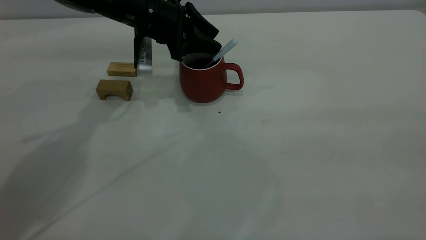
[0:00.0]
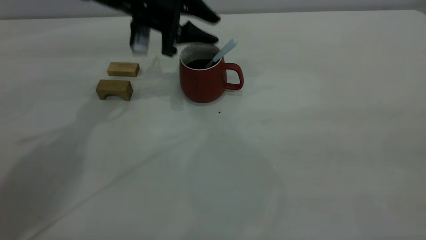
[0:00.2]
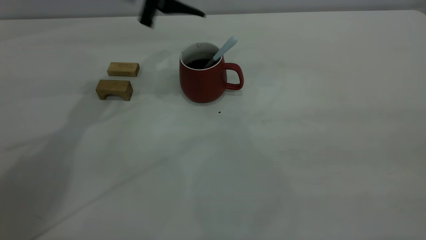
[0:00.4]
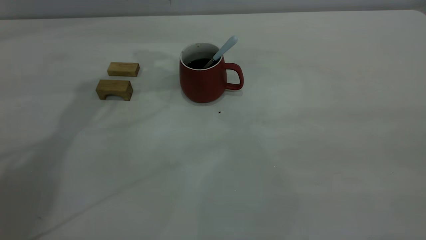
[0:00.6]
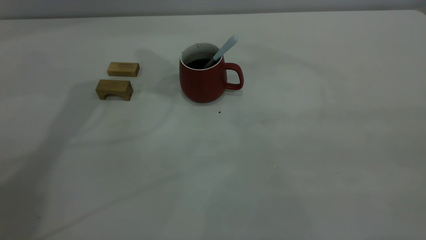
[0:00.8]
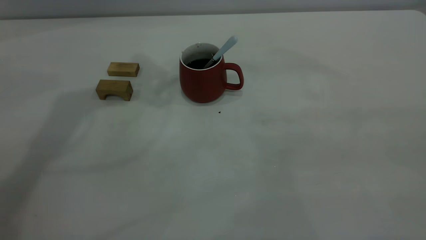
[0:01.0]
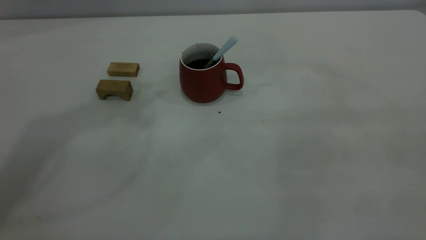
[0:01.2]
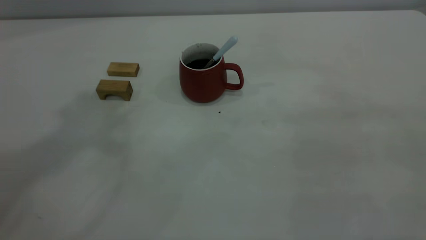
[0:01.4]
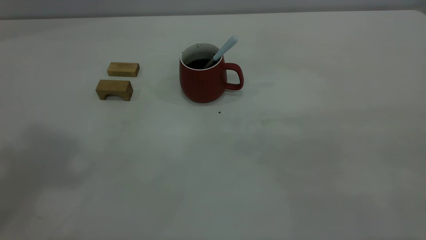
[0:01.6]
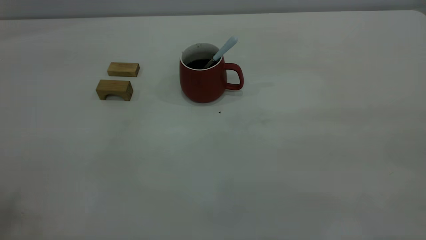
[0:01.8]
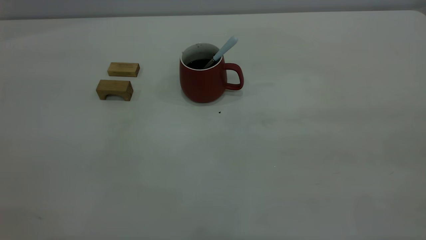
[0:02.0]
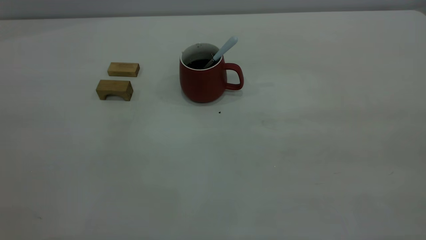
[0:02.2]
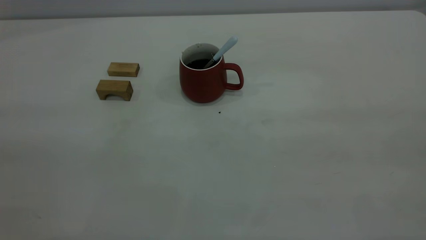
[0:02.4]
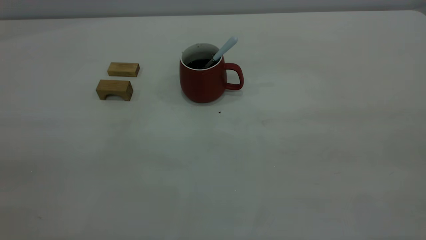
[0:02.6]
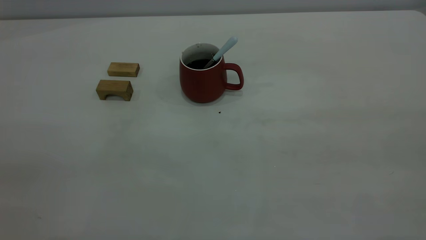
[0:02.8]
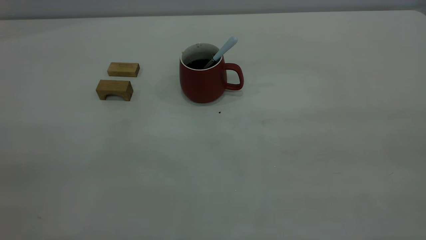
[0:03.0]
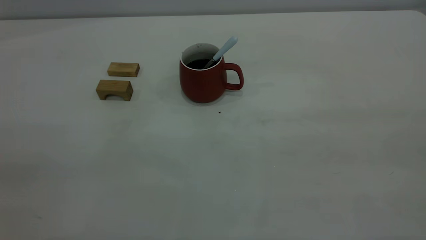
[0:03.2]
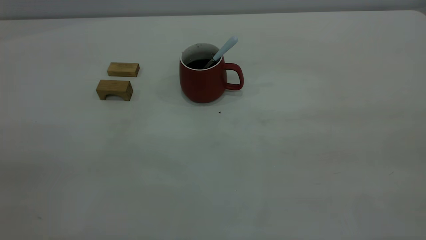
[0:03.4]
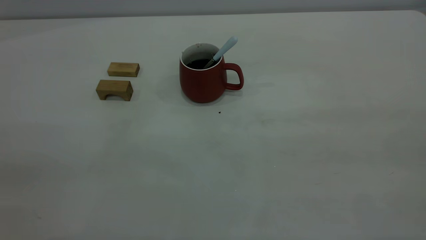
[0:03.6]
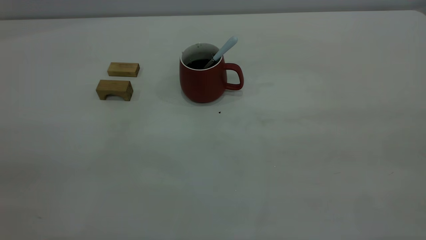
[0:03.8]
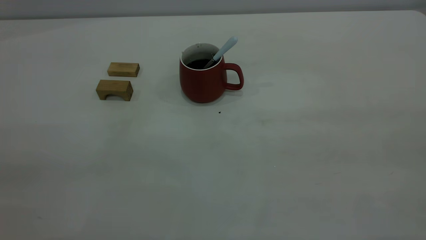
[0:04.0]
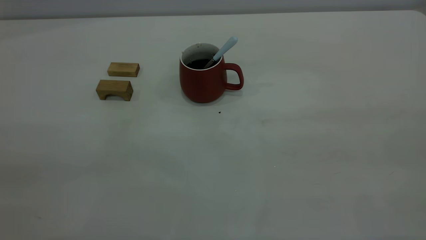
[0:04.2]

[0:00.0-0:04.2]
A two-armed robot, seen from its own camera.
0:00.0 to 0:01.4: The left gripper heads upward and backward, covering about 40 cm.
0:02.8 to 0:04.2: Both grippers stay about where they are.
